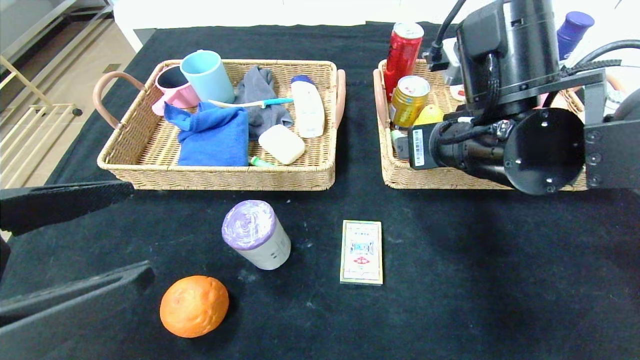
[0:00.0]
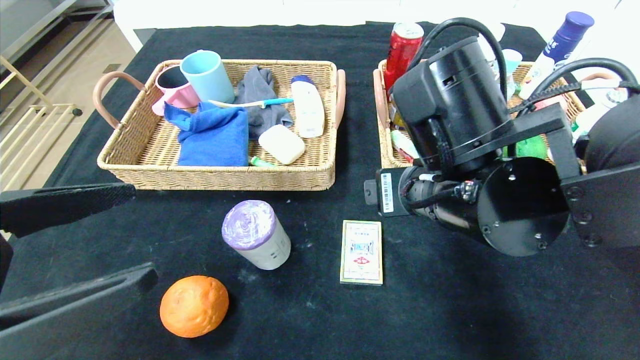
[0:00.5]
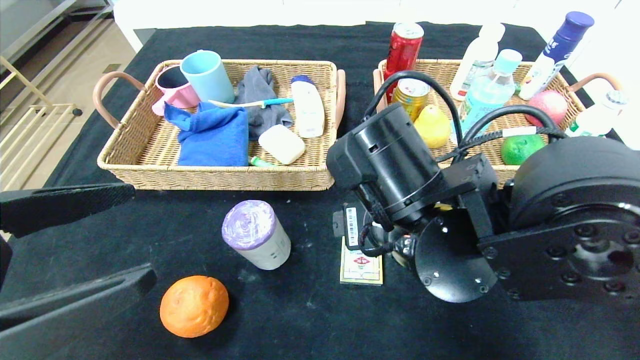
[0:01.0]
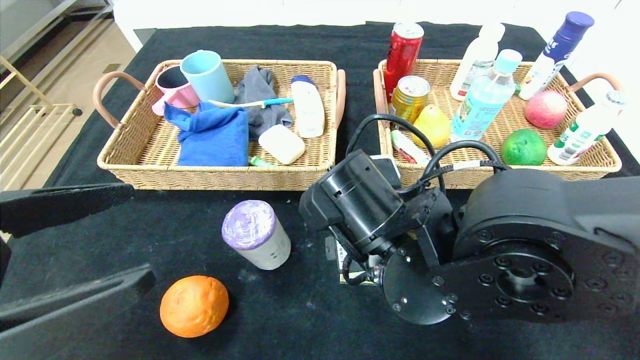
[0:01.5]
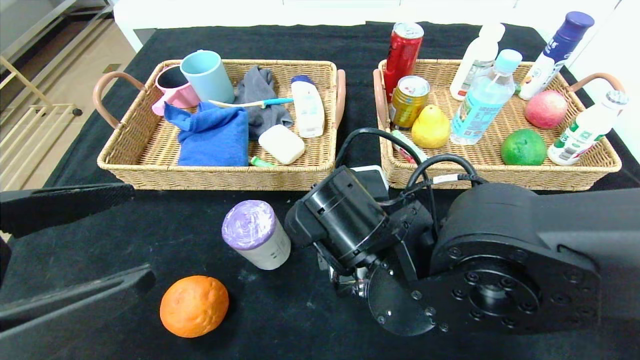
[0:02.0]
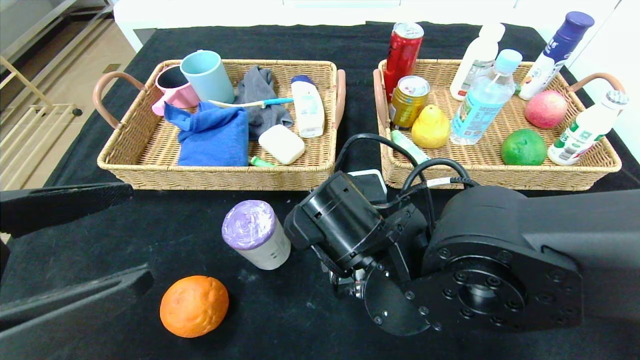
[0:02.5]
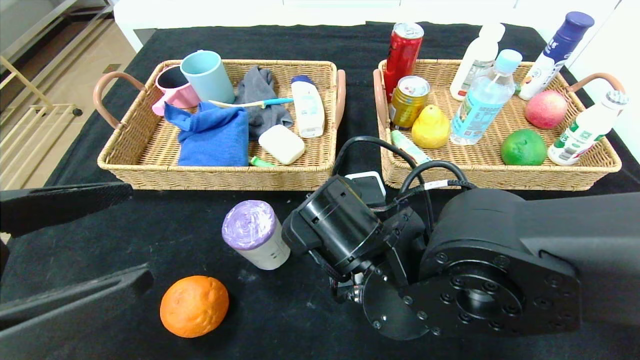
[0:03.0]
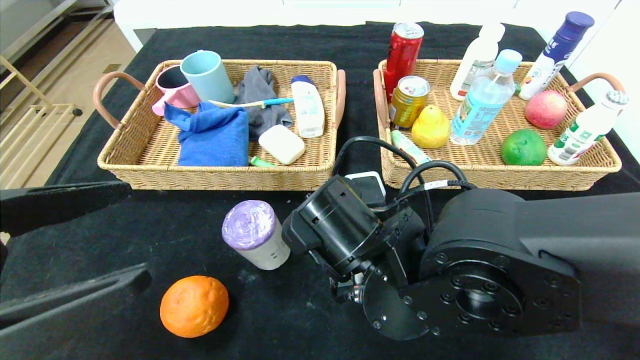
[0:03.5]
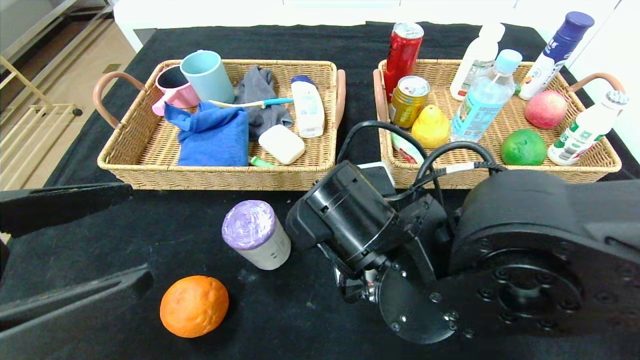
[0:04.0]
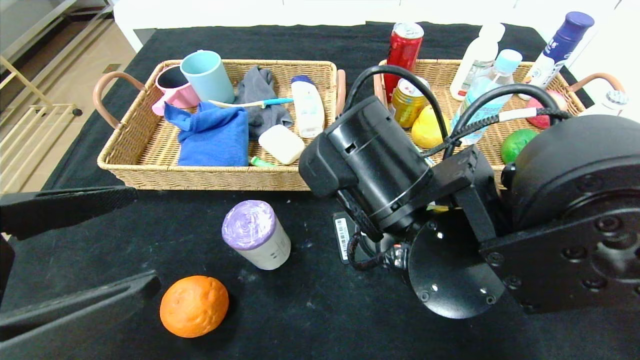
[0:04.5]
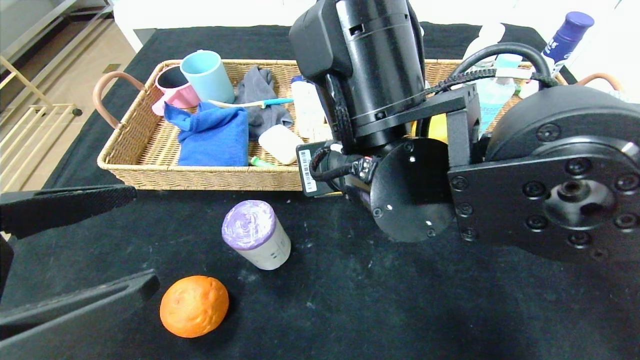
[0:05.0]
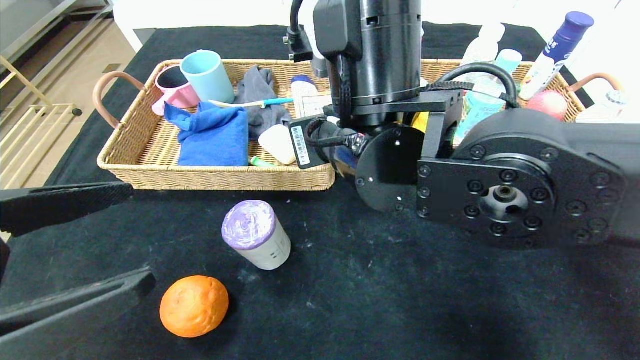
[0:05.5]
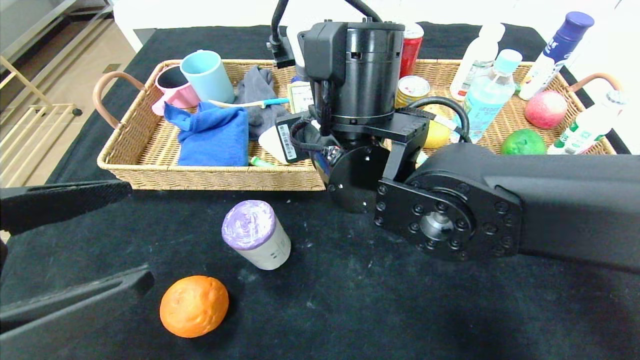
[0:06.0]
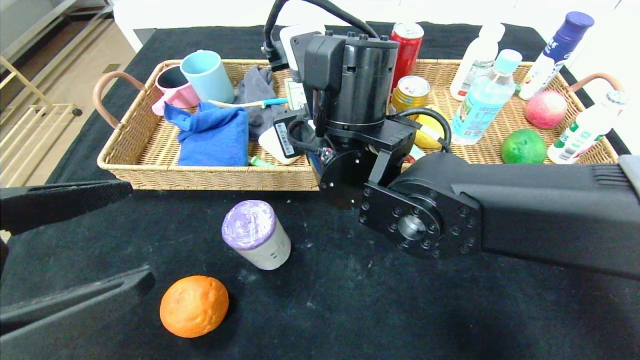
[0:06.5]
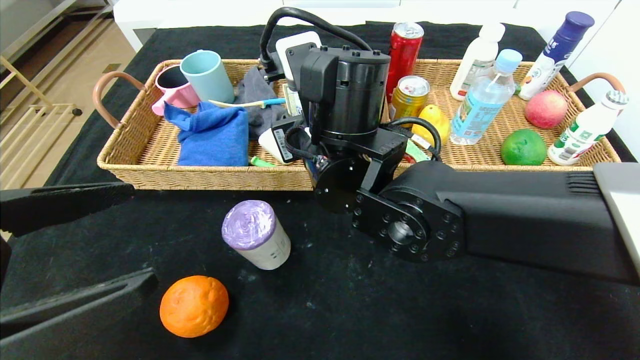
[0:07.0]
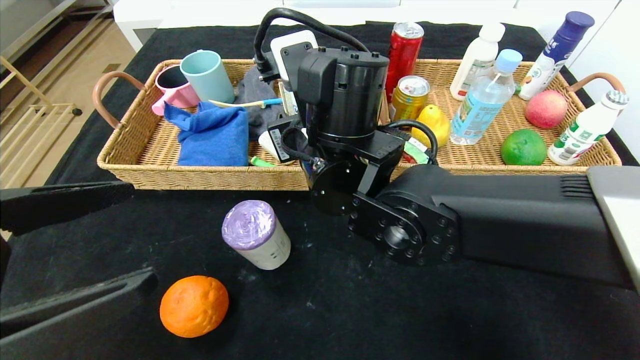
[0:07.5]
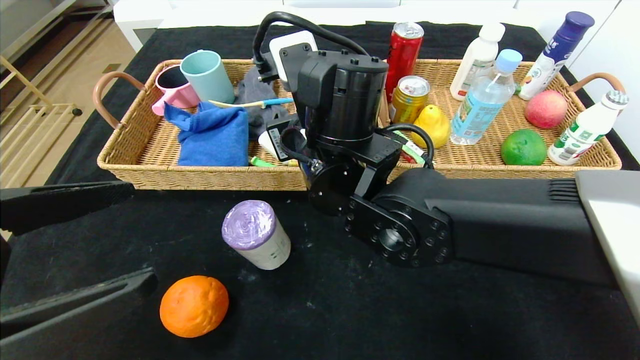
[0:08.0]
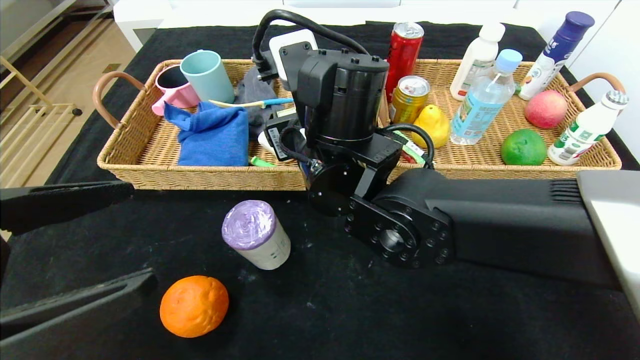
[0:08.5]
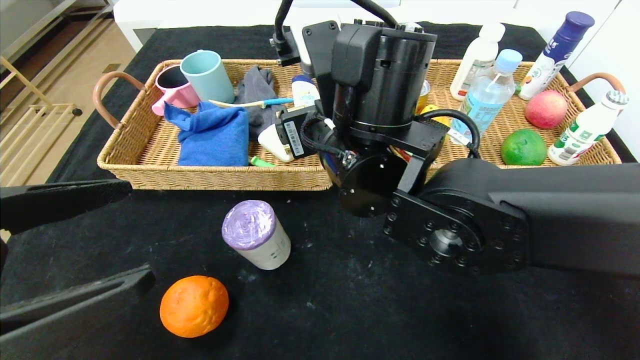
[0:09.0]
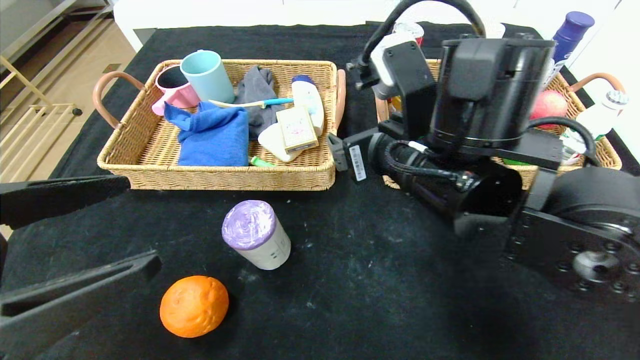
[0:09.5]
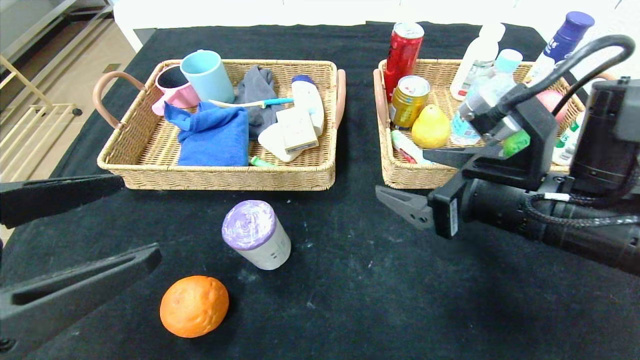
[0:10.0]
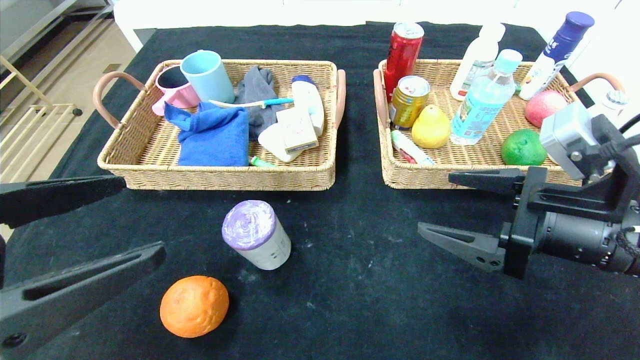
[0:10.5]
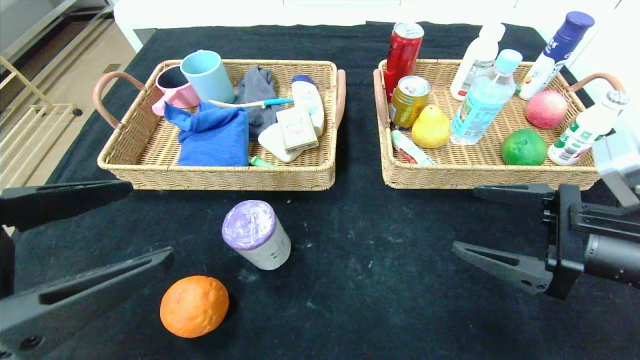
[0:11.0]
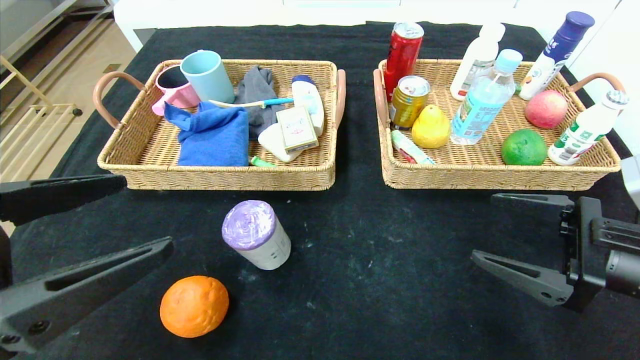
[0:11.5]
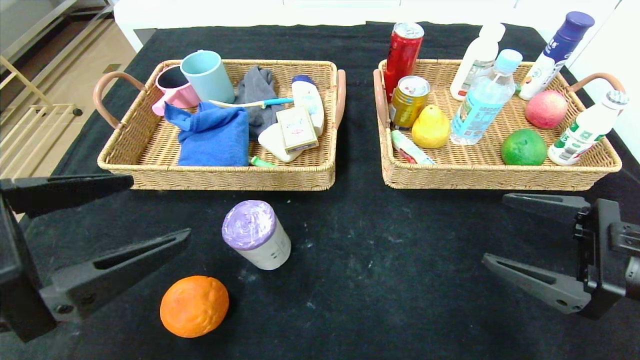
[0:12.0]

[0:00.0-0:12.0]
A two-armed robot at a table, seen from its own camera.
0.0 to 2.0 s: The right gripper shifts approximately 15 cm downward and to the left.
2.0 to 4.0 s: The right gripper closes.
4.0 to 6.0 s: The right gripper heads upward and forward, covering some 10 cm.
8.0 to 10.0 s: The right gripper goes about 20 cm to the right.
10.0 to 12.0 s: The right gripper is displaced to the right by roughly 10 cm.

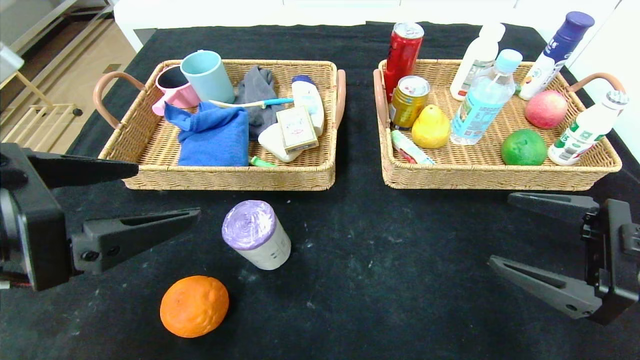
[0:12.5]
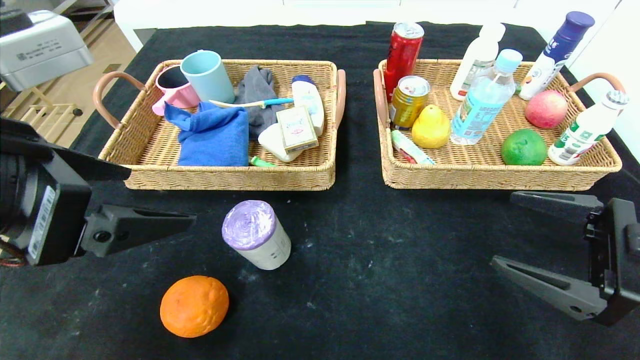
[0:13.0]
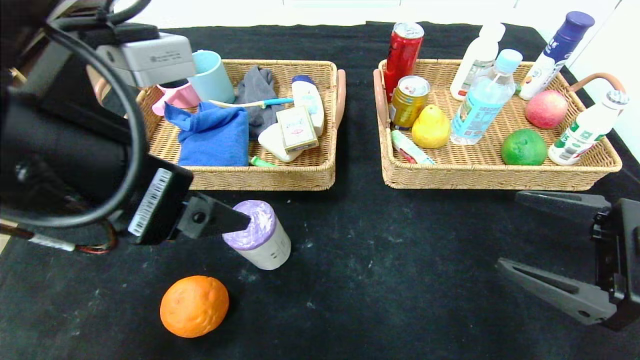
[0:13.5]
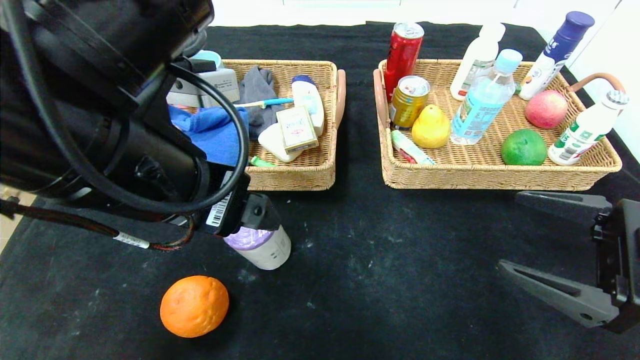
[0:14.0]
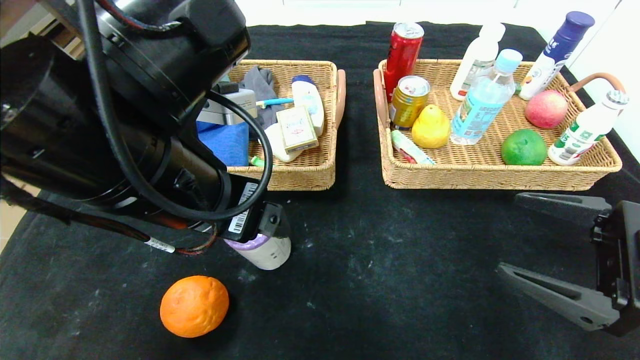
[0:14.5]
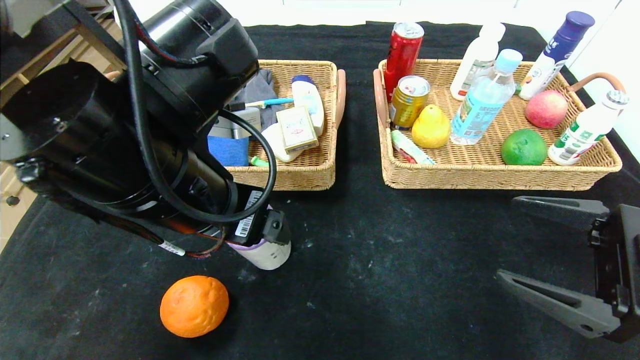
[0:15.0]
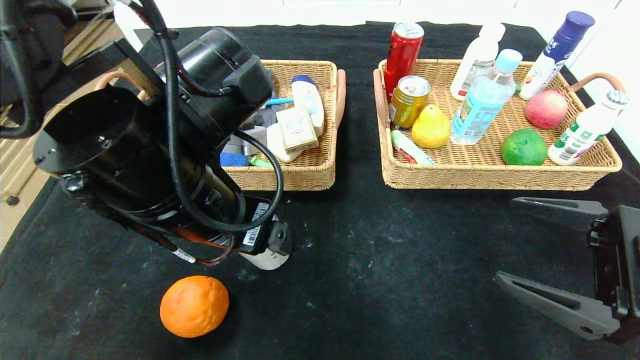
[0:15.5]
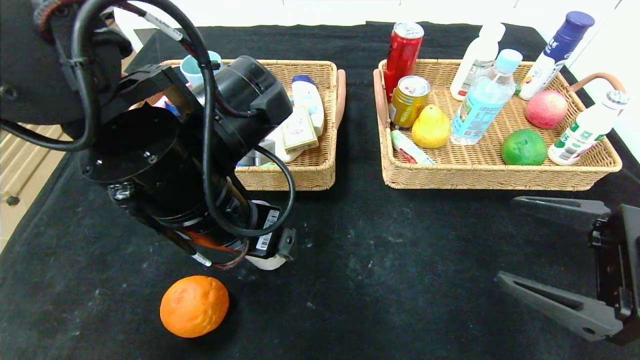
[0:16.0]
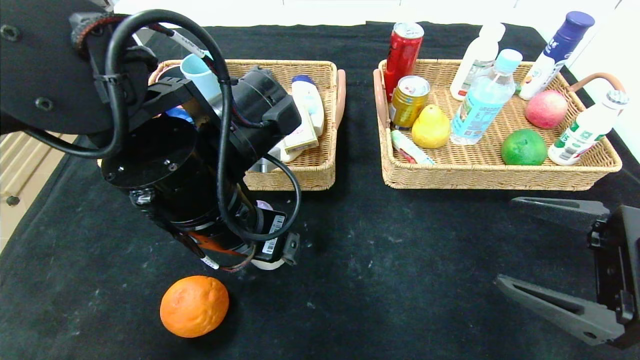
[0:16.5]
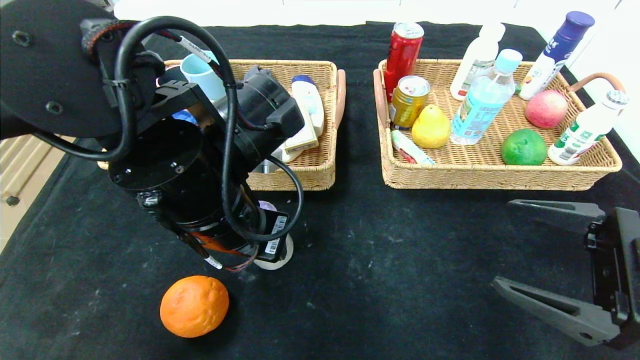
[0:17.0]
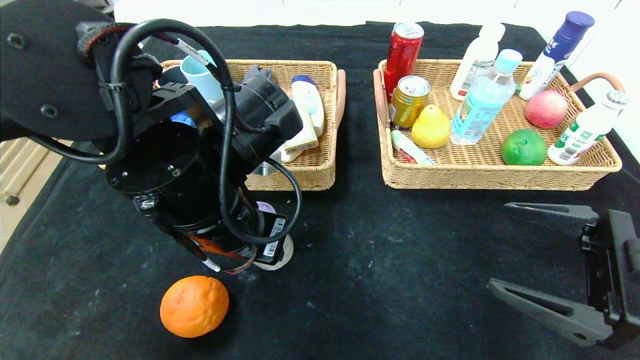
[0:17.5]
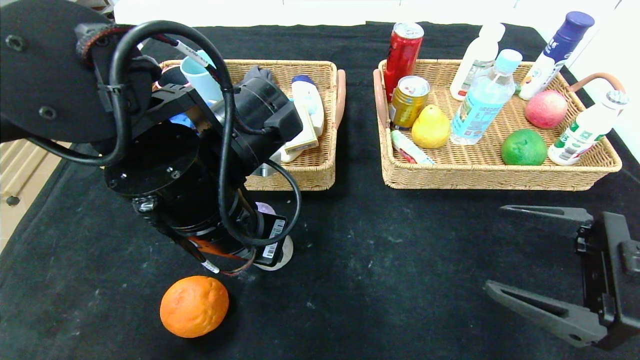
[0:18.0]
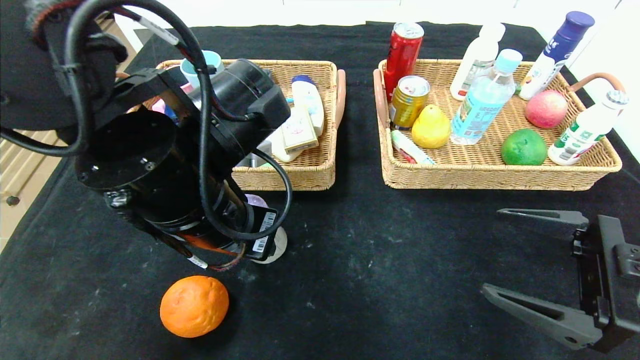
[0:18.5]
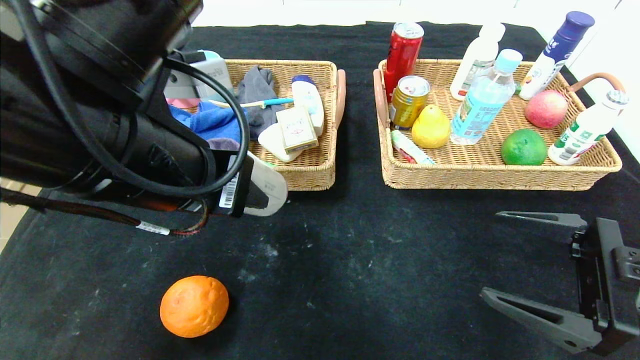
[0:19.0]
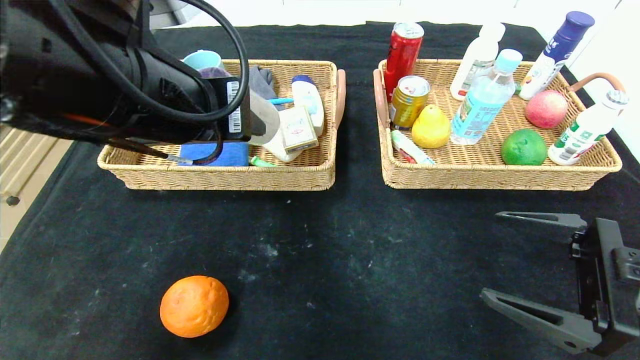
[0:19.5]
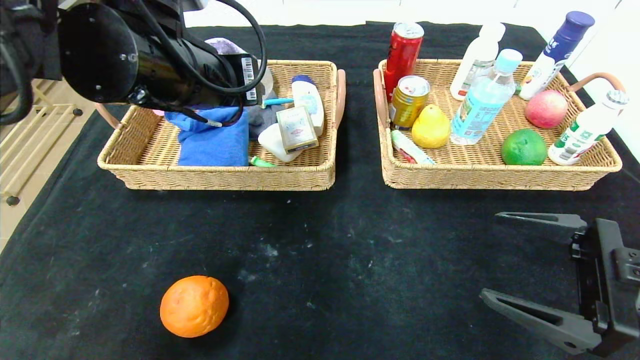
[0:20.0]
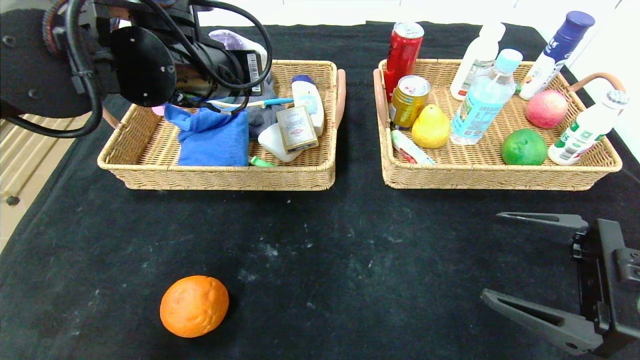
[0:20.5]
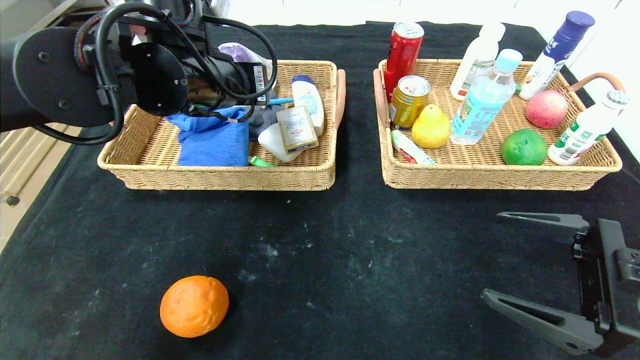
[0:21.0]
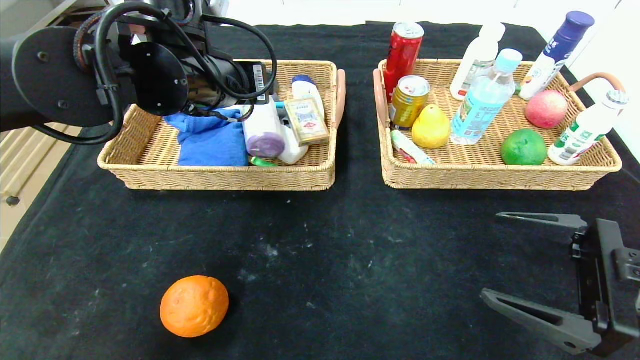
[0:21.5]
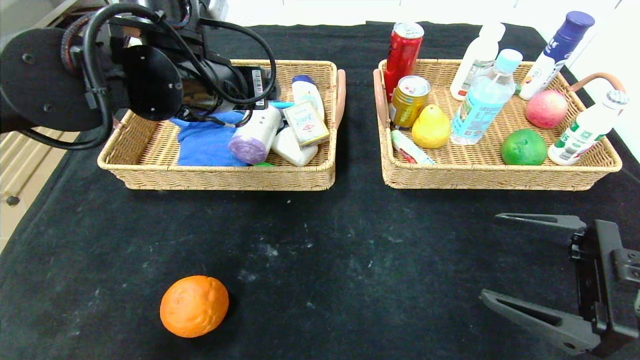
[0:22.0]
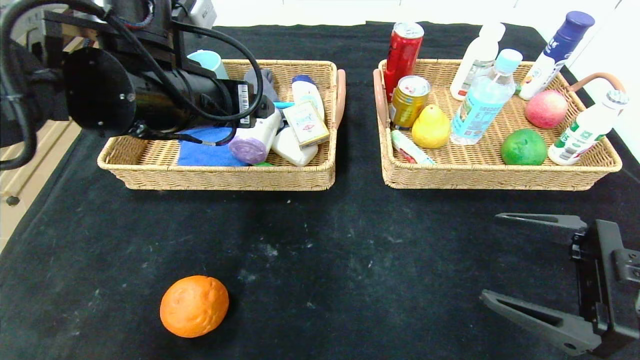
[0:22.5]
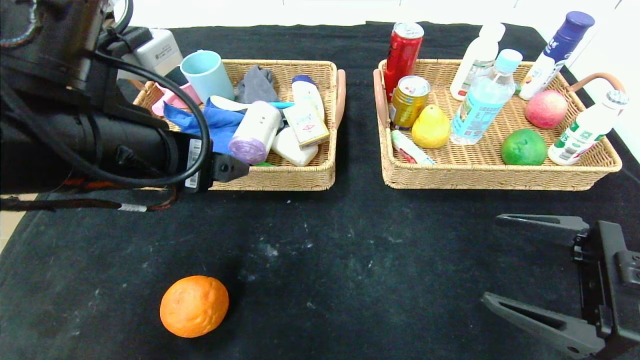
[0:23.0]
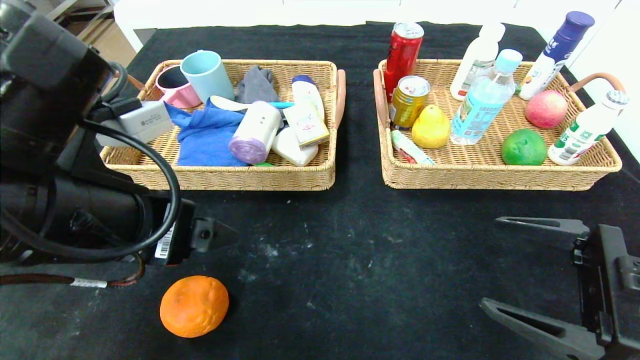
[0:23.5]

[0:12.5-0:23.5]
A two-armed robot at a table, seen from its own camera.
Step, 12.5 to 22.0 s: Grasp the purple garbage bag and put it in the left basket.
12.5 to 14.5 s: The left gripper moves to the right and forward, approximately 10 cm.
14.5 to 16.0 s: The left gripper ends up approximately 5 cm from where it was.
16.0 to 18.0 s: The left gripper closes.
18.0 to 20.0 s: The left gripper is displaced upward by some 10 cm.
20.0 to 21.5 s: The left gripper is displaced forward by some 5 cm, and opens its fingers.
21.5 to 23.5 s: The left gripper travels backward by approximately 15 cm.
